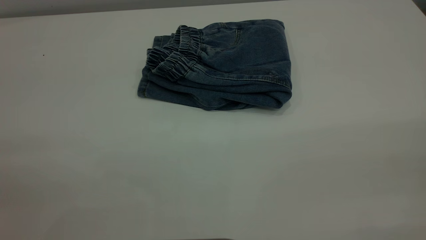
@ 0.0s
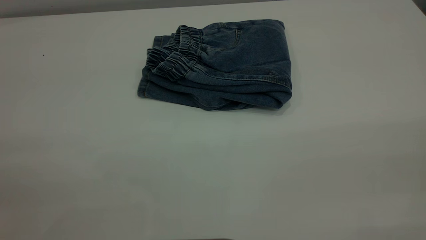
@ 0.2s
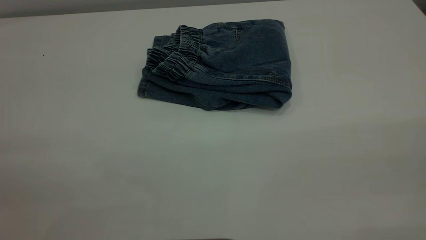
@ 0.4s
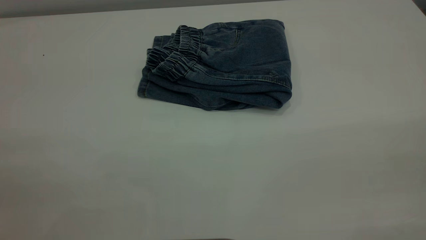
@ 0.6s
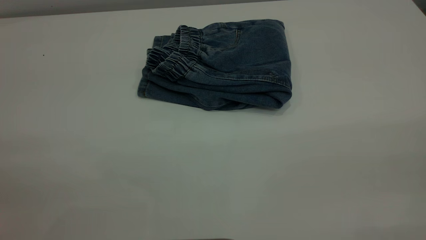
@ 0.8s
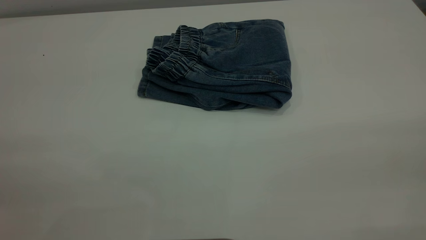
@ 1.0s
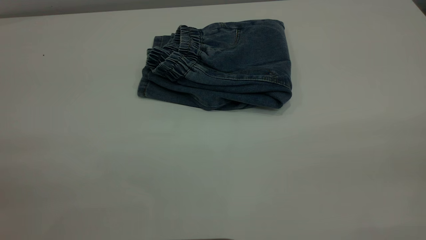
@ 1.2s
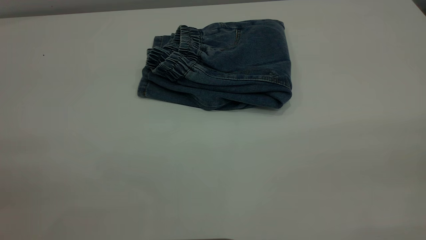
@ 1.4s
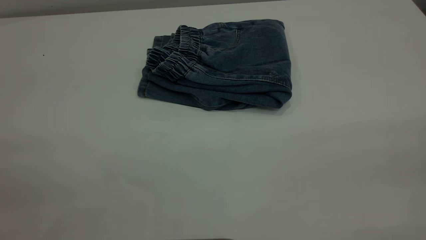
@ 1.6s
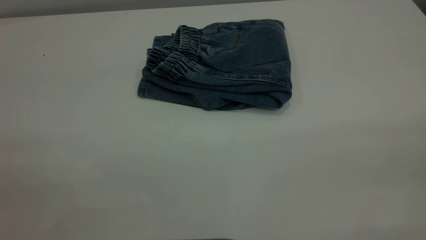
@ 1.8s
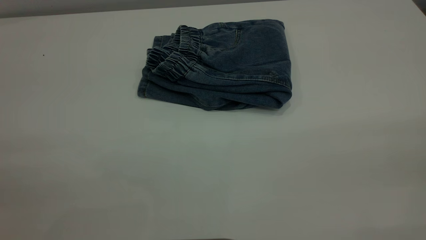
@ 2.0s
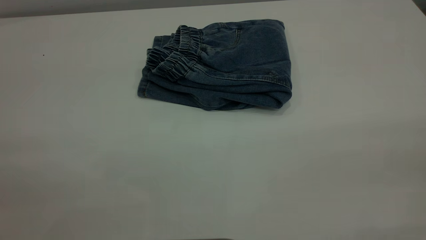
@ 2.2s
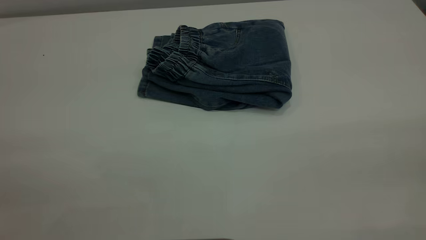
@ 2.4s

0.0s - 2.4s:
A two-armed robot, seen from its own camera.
1.2s - 2.4s: Both grippers stay about where they are.
